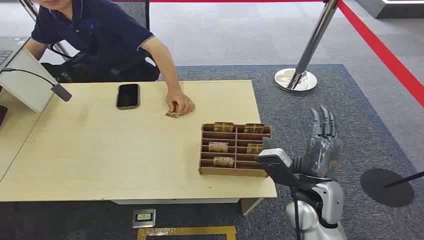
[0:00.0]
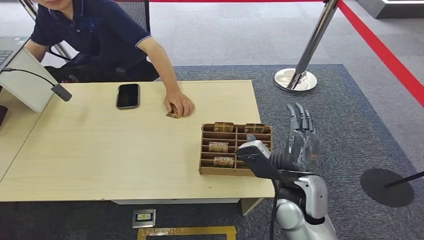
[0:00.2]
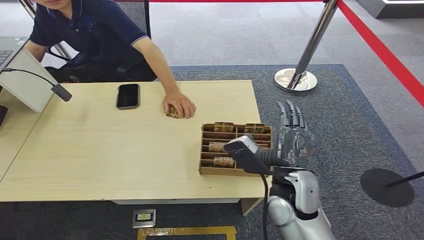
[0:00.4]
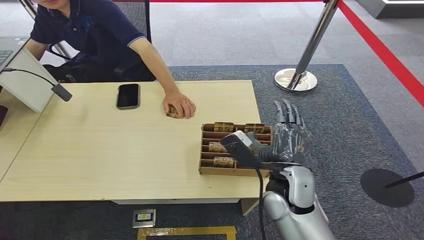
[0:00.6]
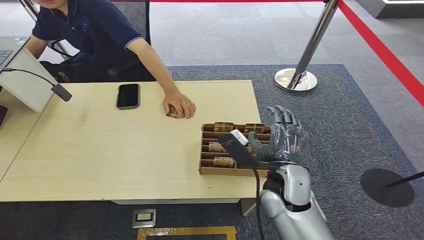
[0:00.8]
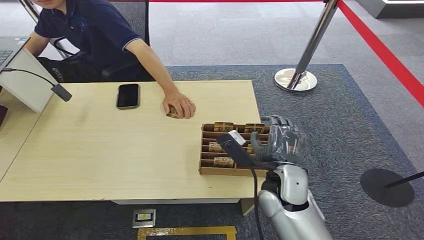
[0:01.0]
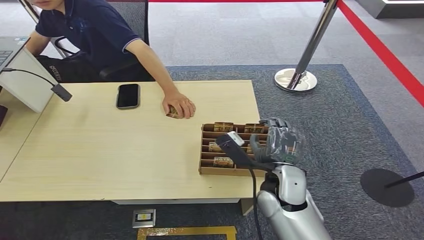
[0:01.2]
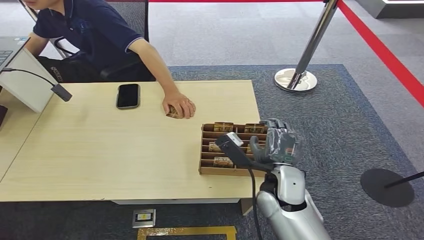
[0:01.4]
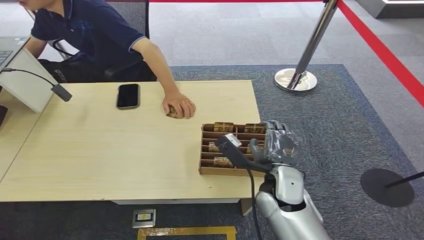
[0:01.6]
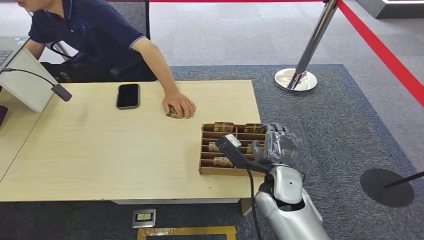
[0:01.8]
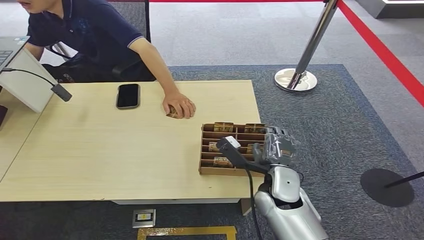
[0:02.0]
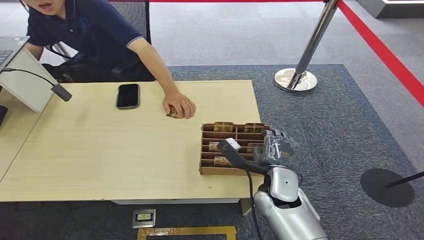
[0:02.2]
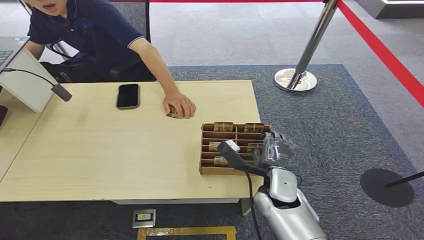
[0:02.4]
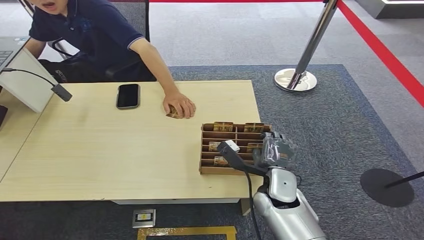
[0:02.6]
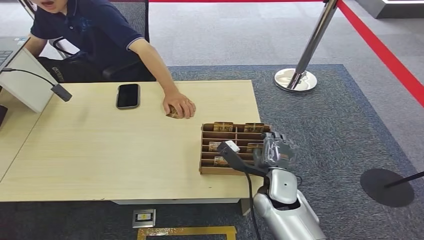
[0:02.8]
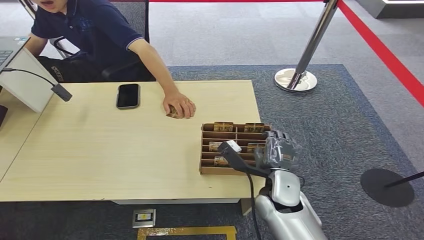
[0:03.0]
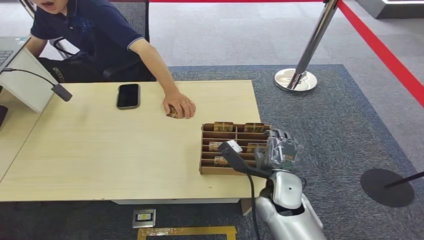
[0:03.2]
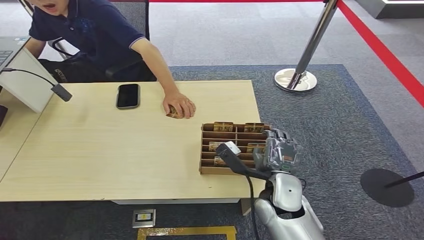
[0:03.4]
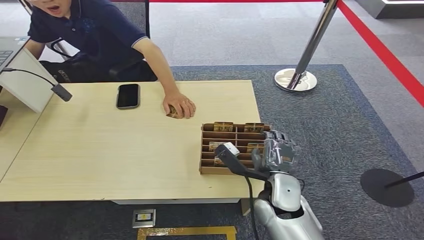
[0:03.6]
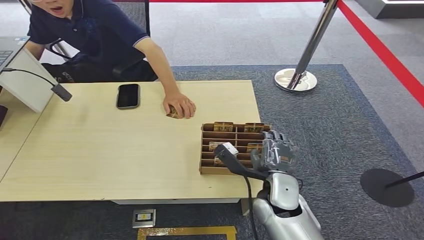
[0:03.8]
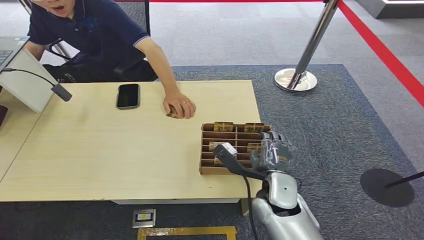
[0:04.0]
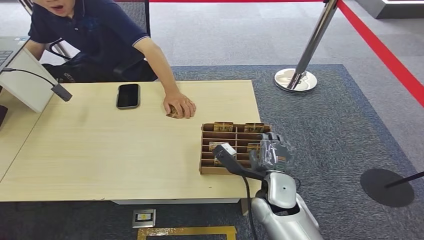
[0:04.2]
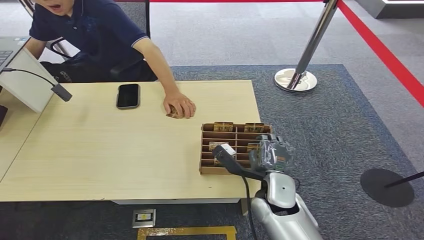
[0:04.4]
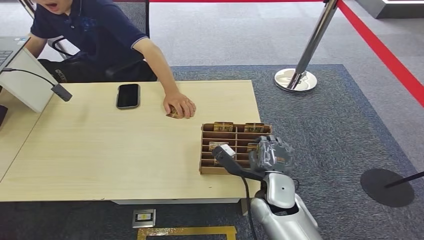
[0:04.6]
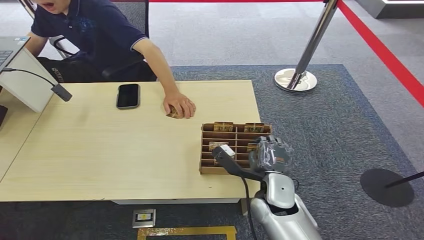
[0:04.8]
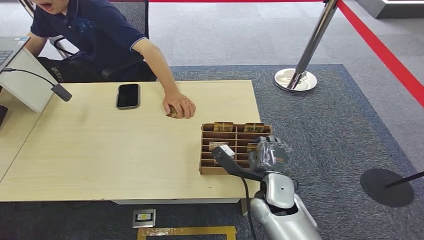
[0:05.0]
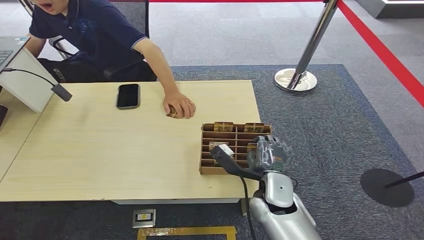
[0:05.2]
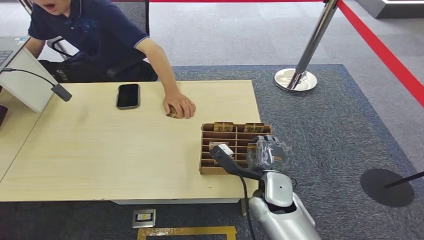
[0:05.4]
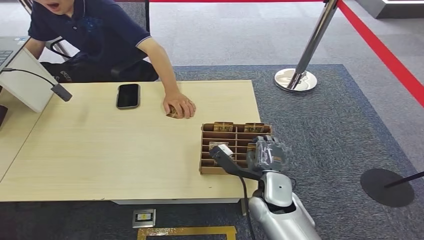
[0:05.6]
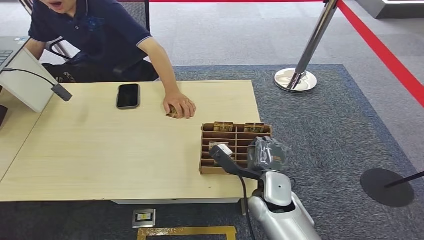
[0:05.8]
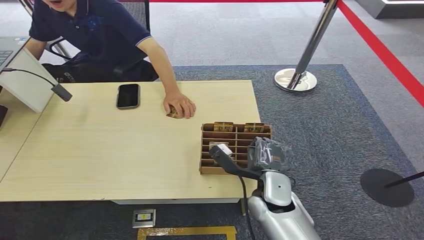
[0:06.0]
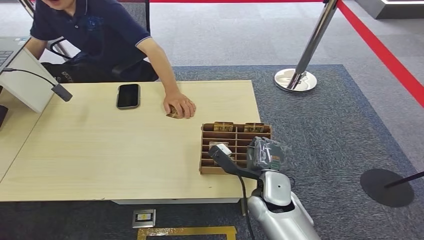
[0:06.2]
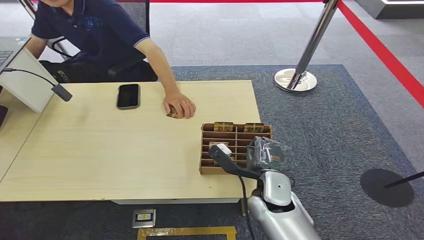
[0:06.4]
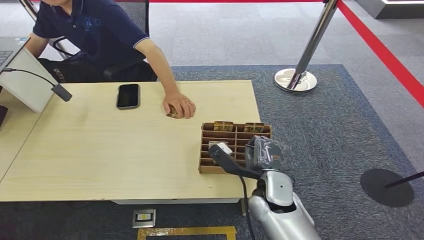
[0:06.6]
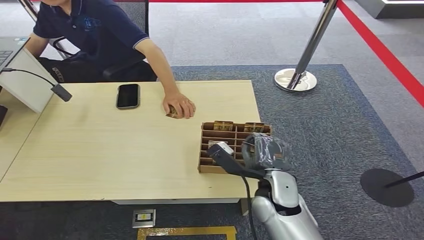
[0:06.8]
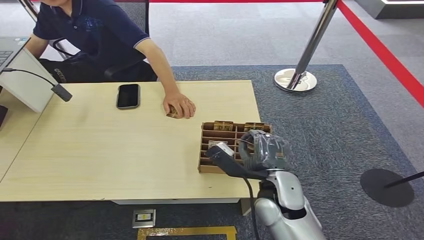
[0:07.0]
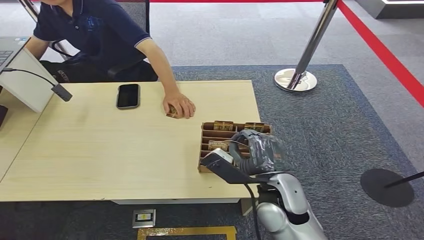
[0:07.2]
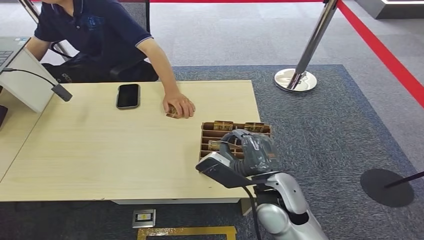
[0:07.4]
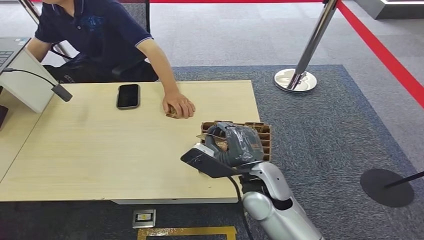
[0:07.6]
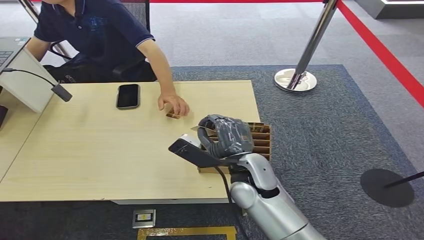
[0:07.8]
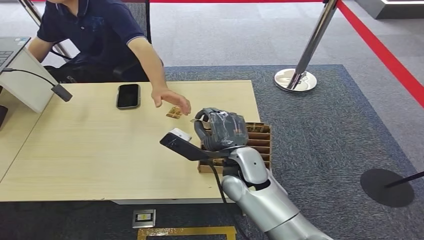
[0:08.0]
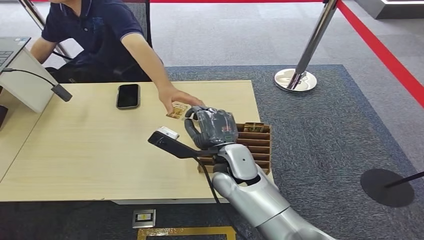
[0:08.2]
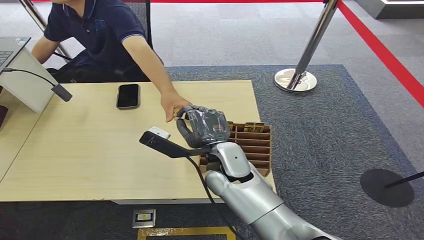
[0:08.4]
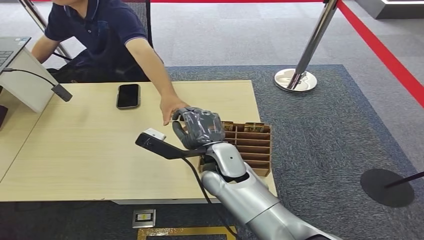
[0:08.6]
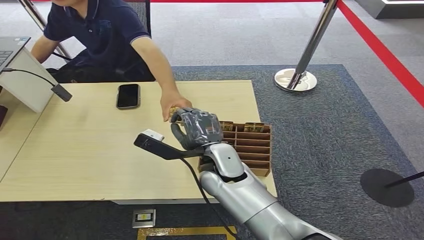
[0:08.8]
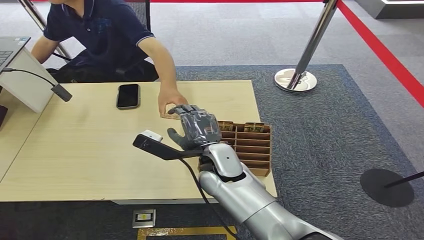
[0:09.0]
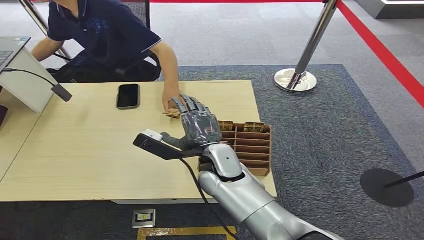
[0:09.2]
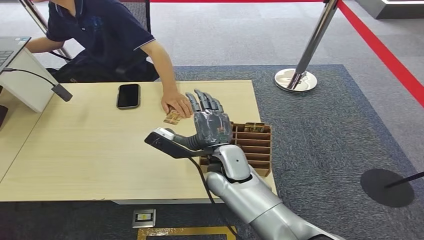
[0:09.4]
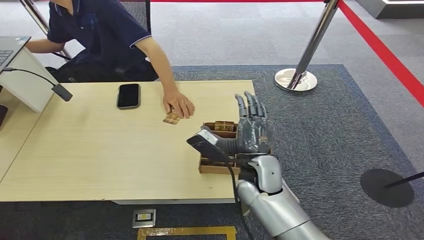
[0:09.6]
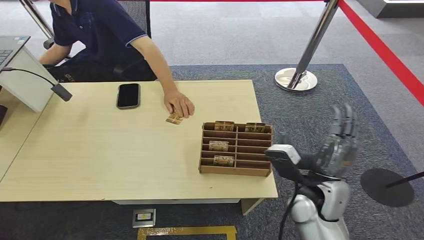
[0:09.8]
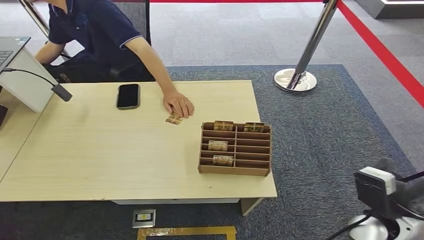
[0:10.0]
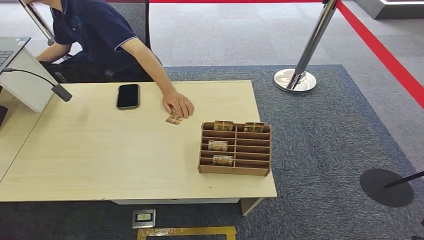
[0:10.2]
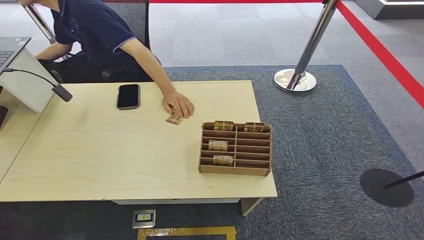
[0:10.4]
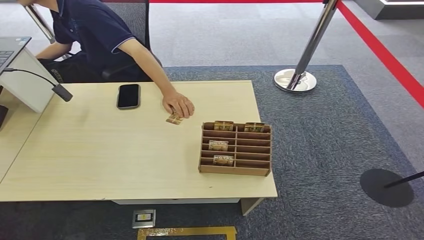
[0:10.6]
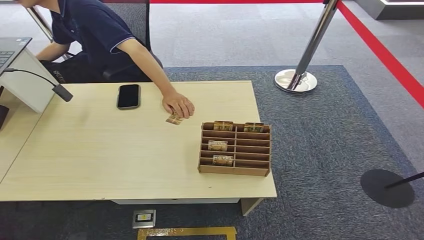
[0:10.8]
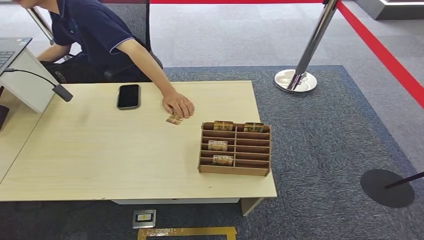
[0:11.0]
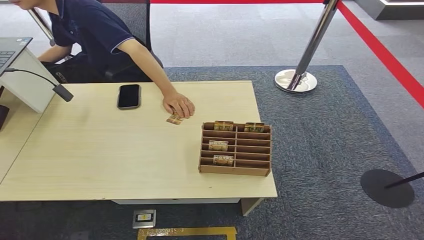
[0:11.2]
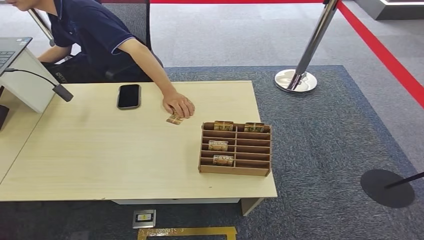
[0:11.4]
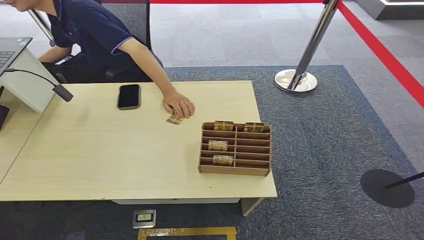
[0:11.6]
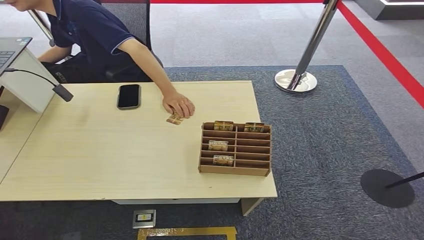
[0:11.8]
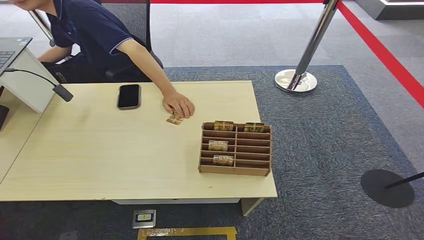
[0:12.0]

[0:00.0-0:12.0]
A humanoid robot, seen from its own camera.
Step, 0:00.0 to 0:07.2: Pick up the key card from the card box.
Step, 0:07.6 to 0:12.0: Hand the key card to the target.
0:01.6 to 0:04.4: The hands make only small movements.
0:04.4 to 0:06.0: Both hands stay put.
0:06.0 to 0:07.6: The right hand moves upward, roughly 5 cm.
0:07.6 to 0:09.0: The right hand goes about 5 cm to the left.
0:09.0 to 0:10.4: The right hand goes about 40 cm to the right and backward.
0:10.4 to 0:12.0: The right hand travels downward, to the left and backward by roughly 20 cm.
